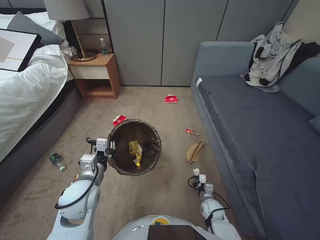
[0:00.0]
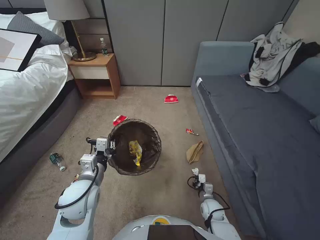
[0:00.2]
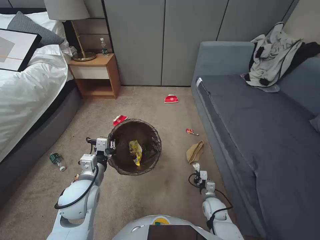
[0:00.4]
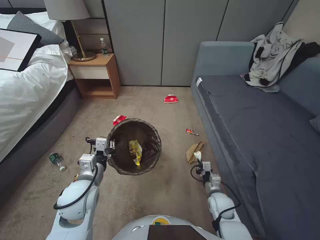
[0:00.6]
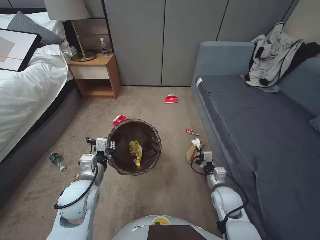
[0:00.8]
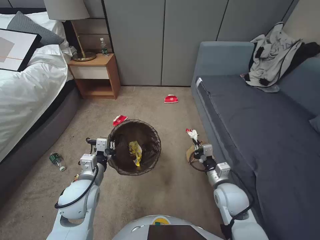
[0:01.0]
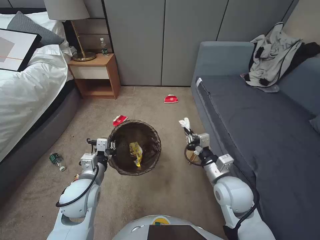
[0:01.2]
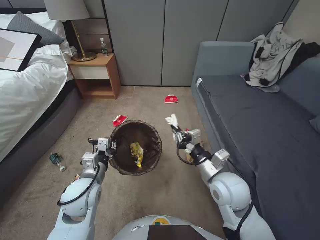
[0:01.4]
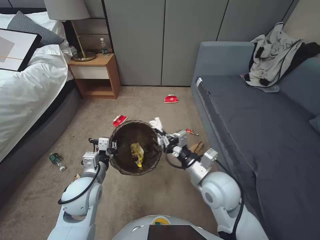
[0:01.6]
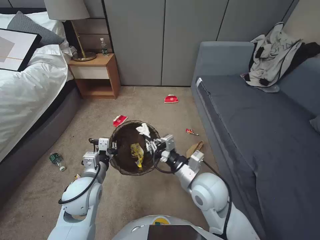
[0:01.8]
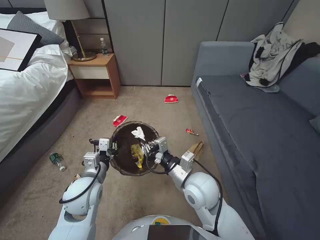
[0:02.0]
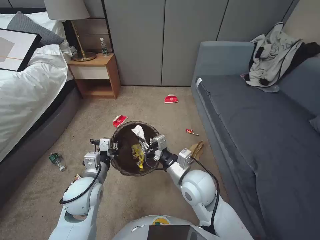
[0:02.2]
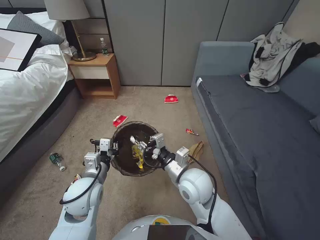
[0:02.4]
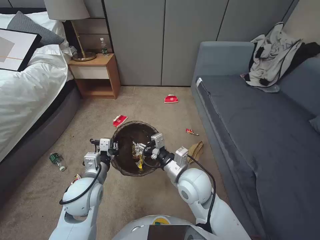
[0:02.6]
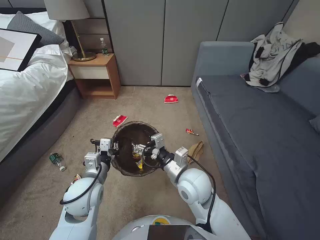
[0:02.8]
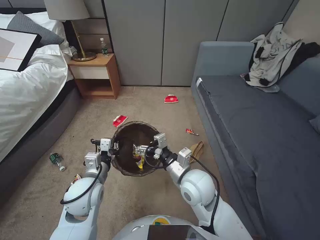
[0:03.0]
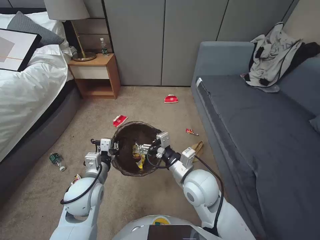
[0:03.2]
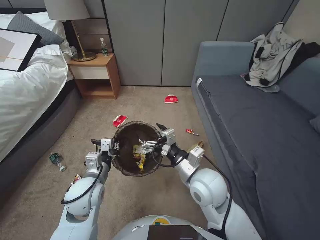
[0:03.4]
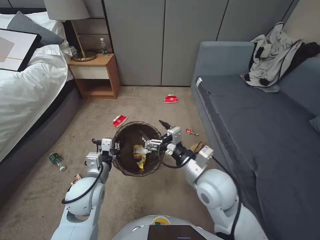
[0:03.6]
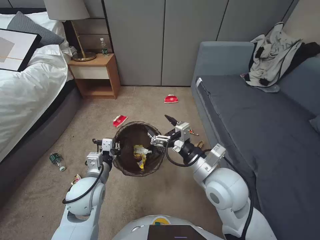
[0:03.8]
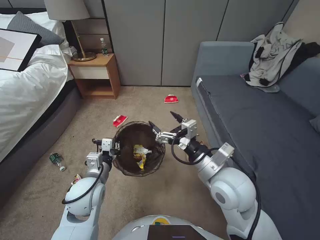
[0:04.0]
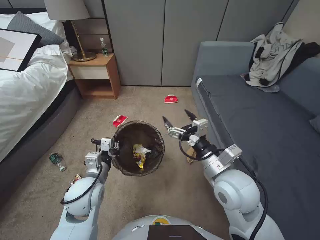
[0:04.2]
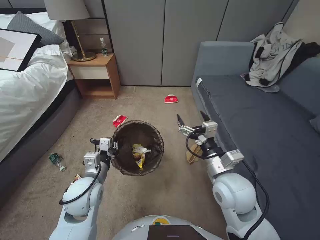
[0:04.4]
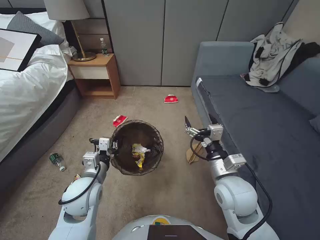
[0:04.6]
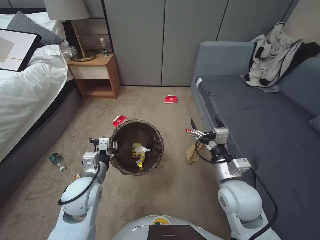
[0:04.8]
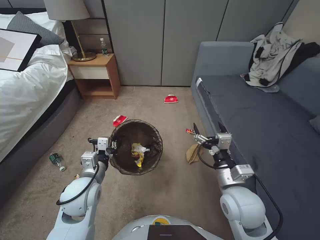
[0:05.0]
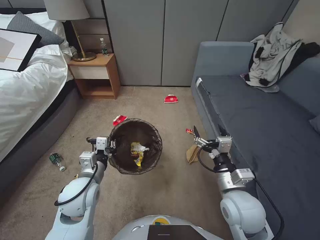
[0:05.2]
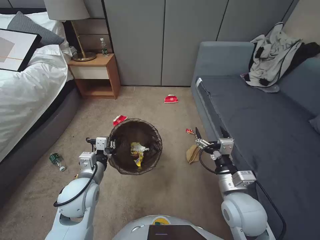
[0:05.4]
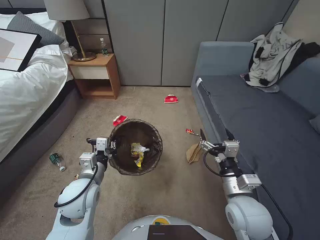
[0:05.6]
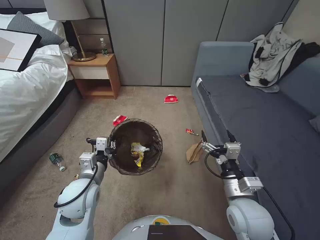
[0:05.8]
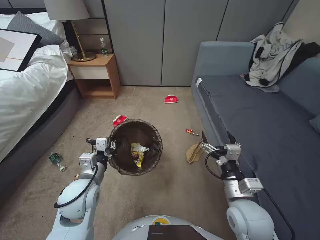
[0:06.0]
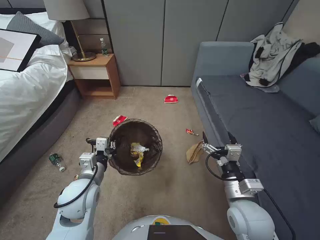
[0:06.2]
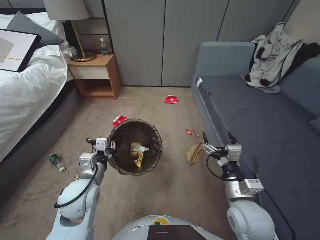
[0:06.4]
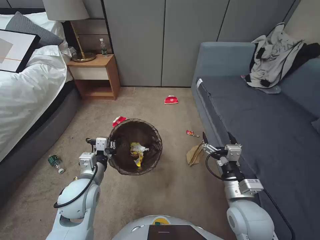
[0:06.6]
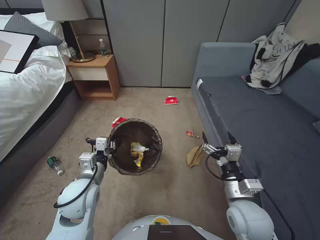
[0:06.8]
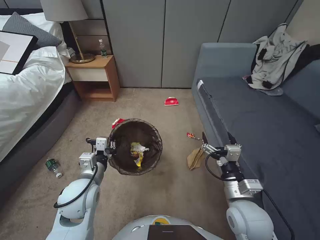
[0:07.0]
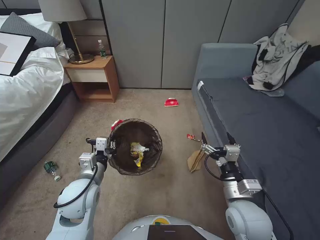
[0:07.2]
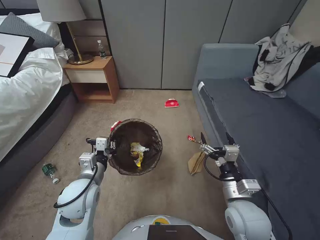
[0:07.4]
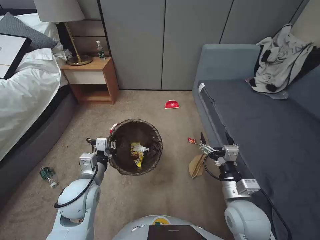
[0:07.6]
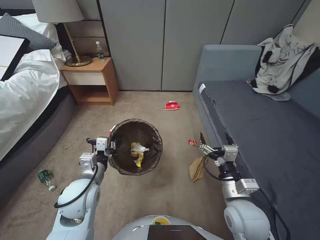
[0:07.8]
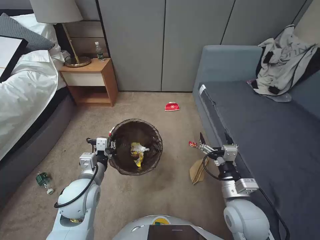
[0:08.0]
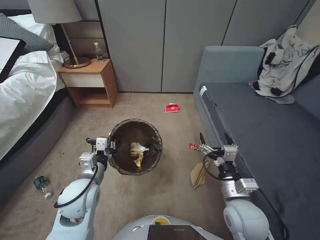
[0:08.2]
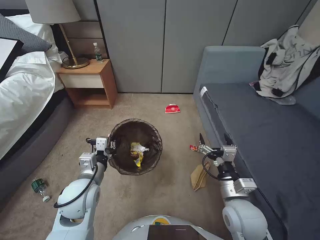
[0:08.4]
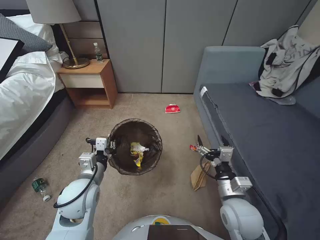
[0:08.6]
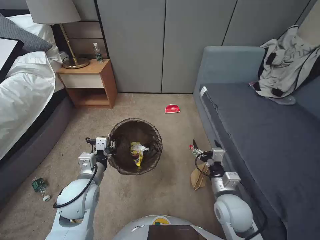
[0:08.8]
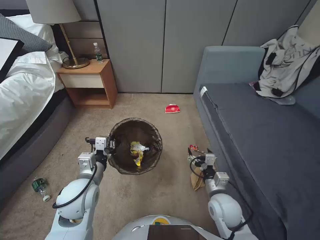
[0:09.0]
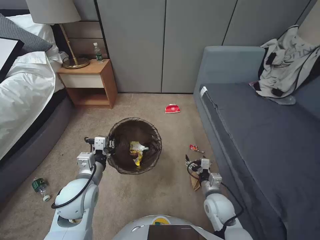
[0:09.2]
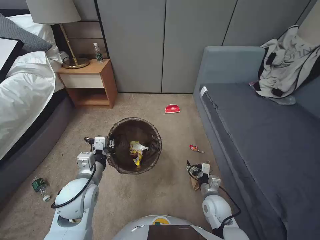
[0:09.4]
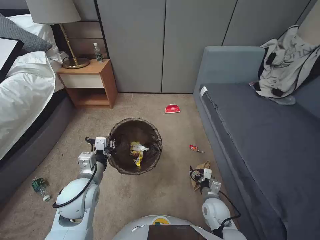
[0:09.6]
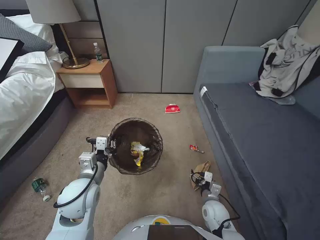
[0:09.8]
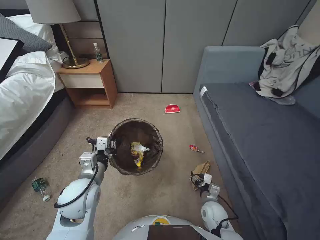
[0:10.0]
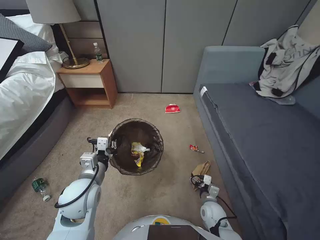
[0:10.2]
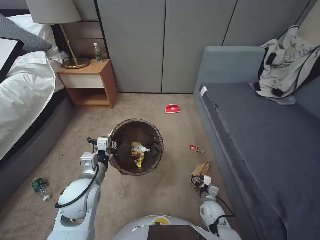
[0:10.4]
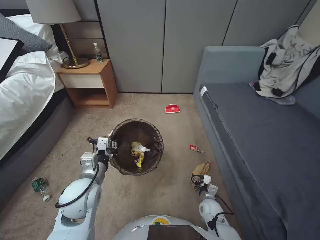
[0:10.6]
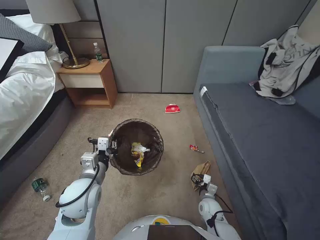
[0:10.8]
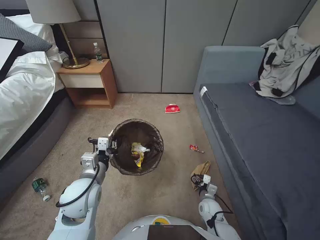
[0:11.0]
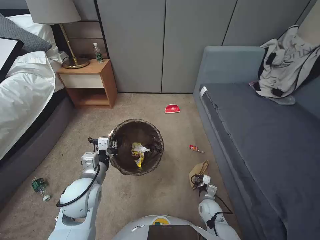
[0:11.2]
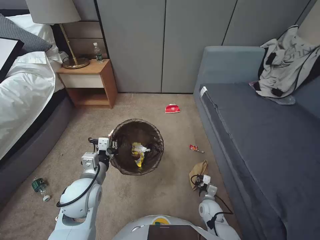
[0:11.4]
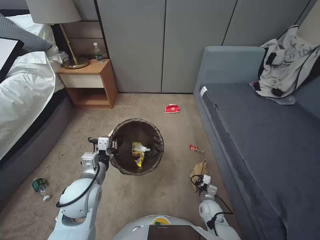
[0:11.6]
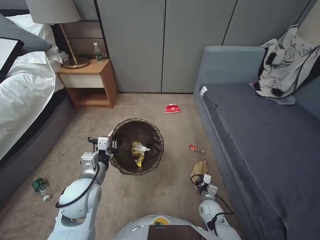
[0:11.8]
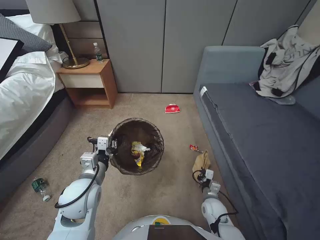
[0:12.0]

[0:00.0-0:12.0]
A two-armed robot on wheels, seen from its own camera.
Task of the whole recording: Pick up the trash bin, then pick up the garbage from the floor and place it into the trash bin.
0:00.0 to 0:01.6: The right gripper travels upward by approximately 35 cm.
0:01.6 to 0:03.0: The right gripper is displaced to the left by about 10 cm, and opens its fingers.
0:03.0 to 0:04.4: The right gripper goes about 10 cm to the right.
0:04.4 to 0:06.0: The right gripper shifts roughly 10 cm downward and backward.
0:06.0 to 0:07.6: The two grippers keep their place.
0:07.6 to 0:09.0: The right gripper is displaced downward by approximately 5 cm.
0:09.0 to 0:10.4: The right gripper moves downward, approximately 20 cm.
0:10.4 to 0:12.0: The right gripper closes.

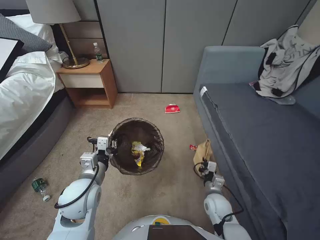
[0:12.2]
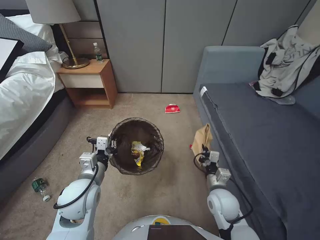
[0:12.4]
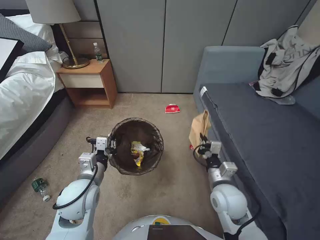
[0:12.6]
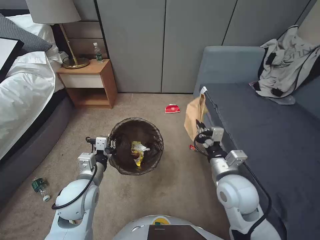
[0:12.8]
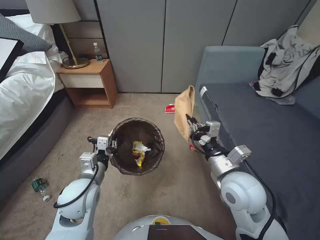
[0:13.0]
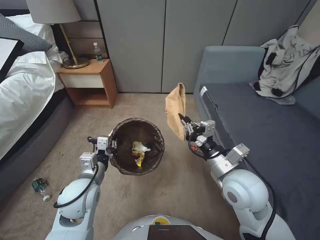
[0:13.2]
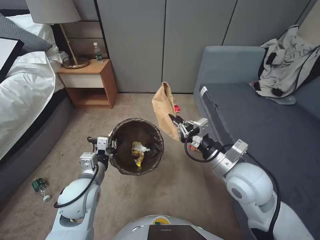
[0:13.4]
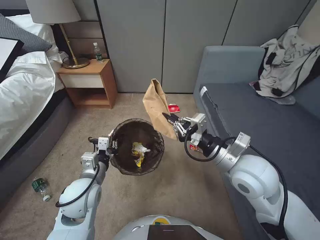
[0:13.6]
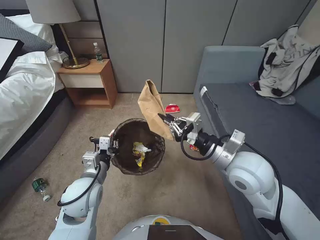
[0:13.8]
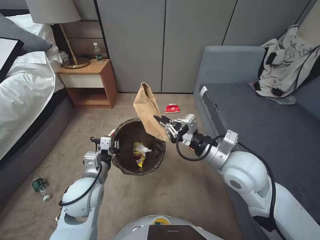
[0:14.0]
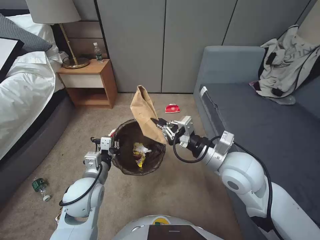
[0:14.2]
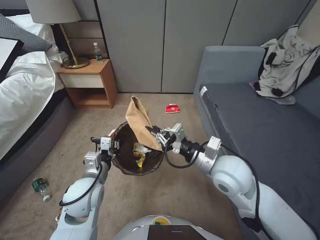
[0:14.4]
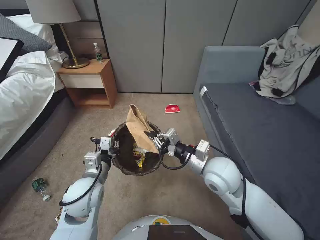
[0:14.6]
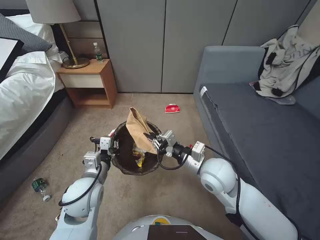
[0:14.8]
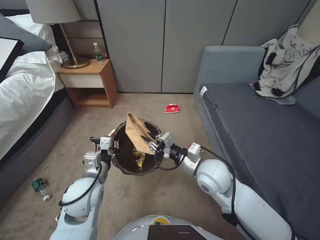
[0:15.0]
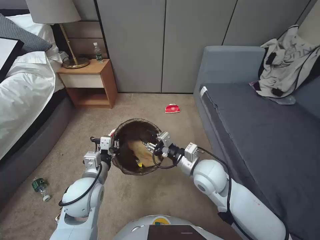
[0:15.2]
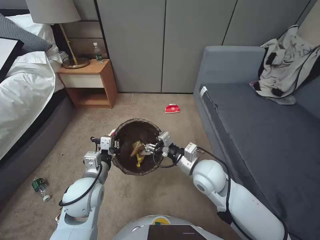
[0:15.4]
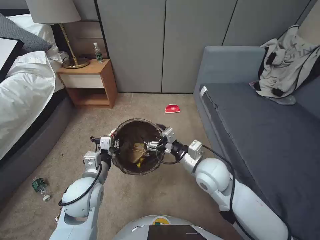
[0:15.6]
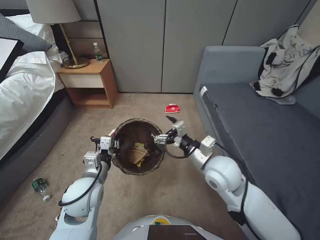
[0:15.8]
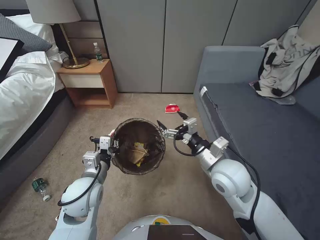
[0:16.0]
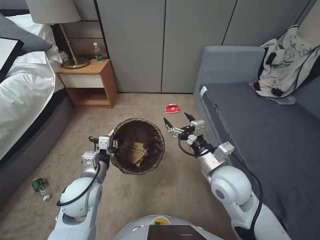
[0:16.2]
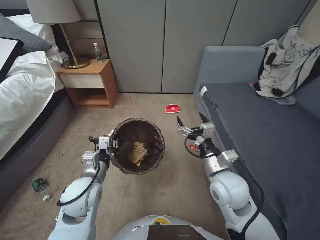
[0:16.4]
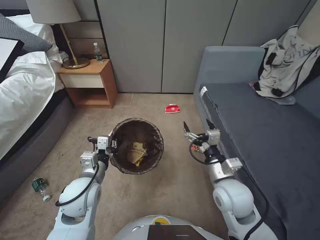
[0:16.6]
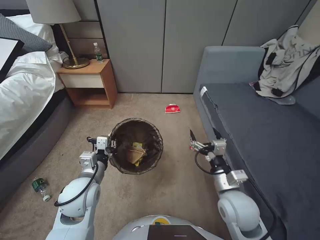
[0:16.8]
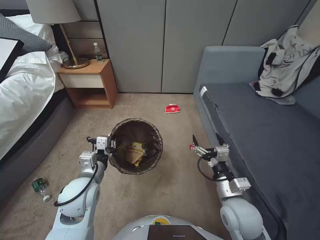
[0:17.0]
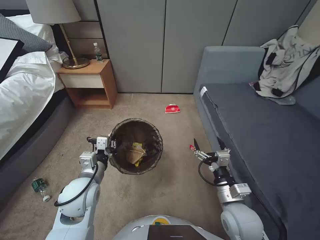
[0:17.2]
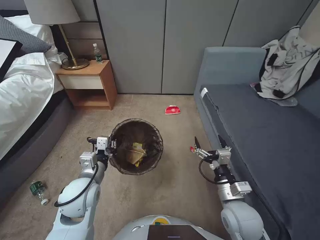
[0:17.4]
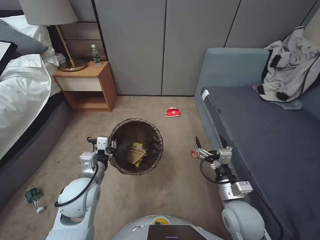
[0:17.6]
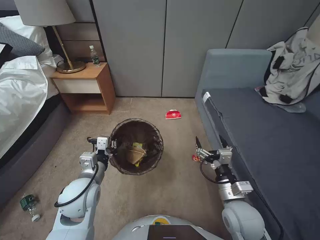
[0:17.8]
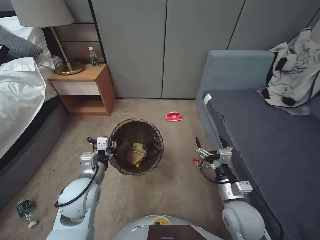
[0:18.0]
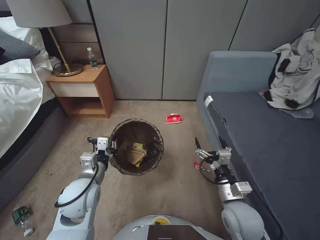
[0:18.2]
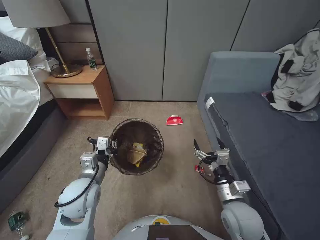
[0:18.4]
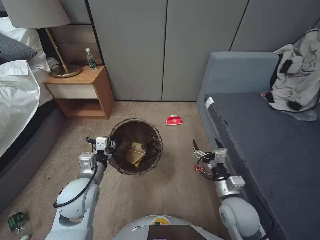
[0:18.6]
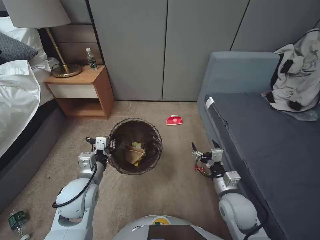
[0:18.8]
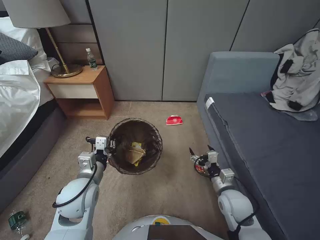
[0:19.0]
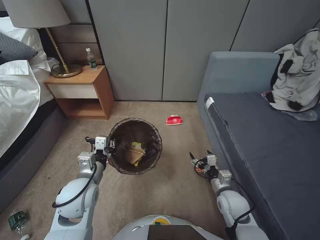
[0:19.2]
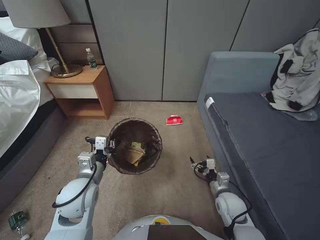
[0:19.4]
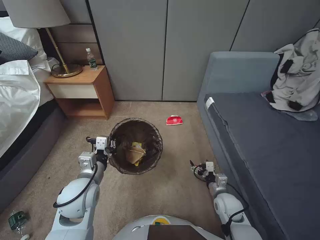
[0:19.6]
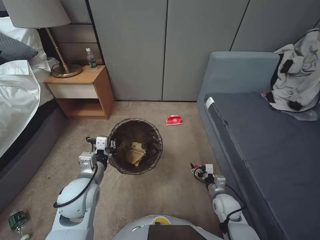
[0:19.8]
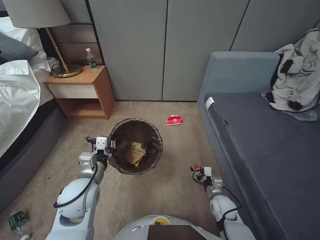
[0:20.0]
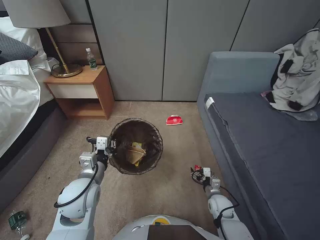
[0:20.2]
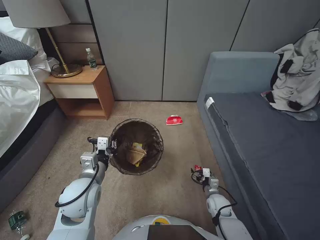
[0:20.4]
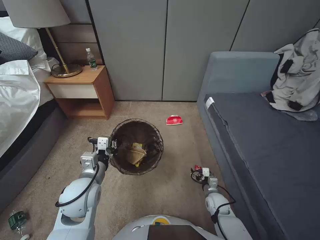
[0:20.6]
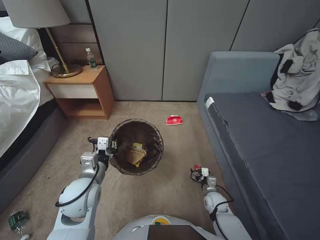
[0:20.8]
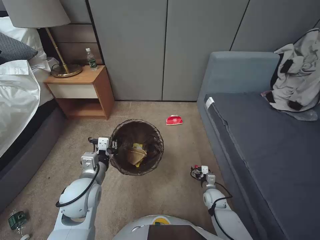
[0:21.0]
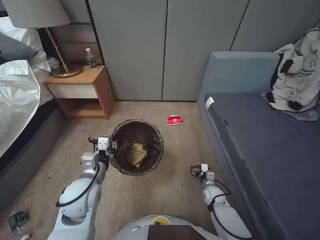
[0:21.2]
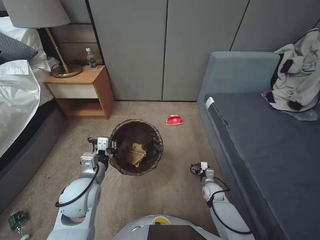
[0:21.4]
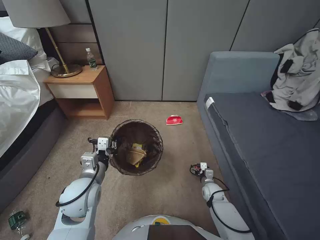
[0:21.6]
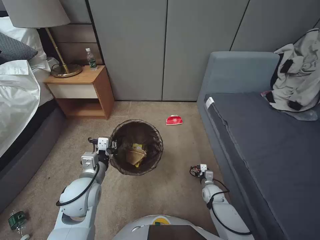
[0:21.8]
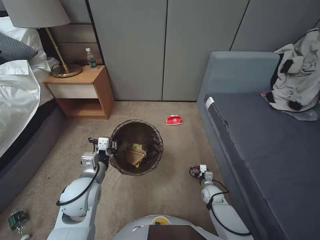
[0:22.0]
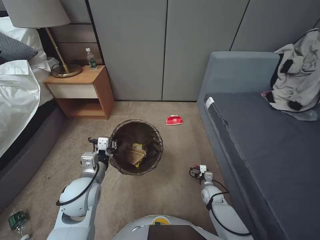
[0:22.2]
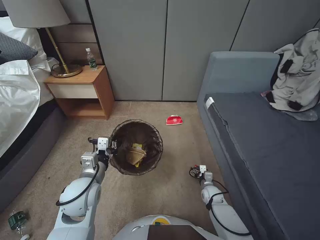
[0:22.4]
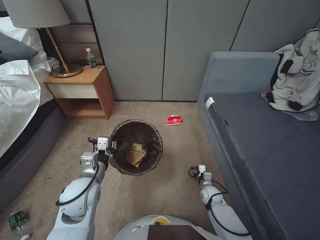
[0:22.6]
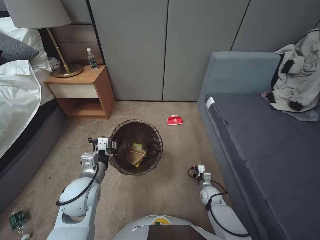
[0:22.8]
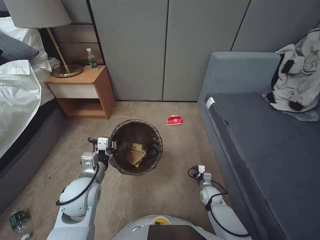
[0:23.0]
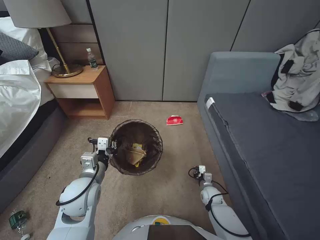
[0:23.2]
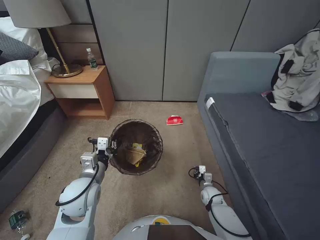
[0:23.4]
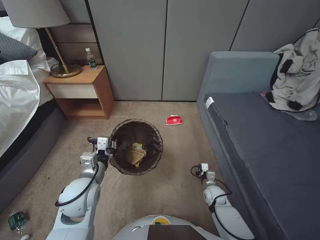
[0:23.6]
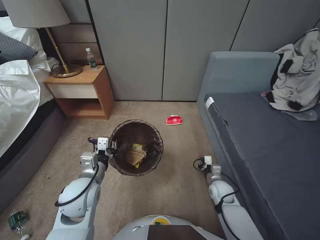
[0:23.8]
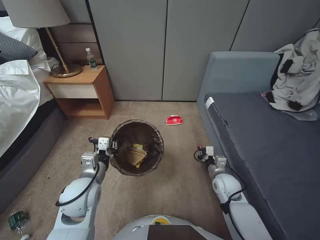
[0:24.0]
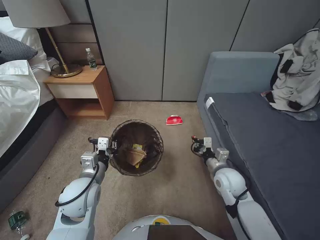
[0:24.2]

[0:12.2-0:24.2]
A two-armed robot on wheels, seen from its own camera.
Task of the whole recording: Pick up the trash bin, then pick up the garbage from the floor and place it into the trash bin.
0:12.2 to 0:13.8: The right gripper goes approximately 35 cm upward.
0:13.8 to 0:15.2: The right gripper goes about 10 cm downward and to the left.
0:15.2 to 0:16.6: The right gripper ends up approximately 5 cm from where it was, and opens its fingers.
0:16.6 to 0:18.2: The right gripper shifts approximately 10 cm downward and backward.
0:18.2 to 0:19.8: The right gripper moves downward, some 15 cm.
0:19.8 to 0:21.2: The right gripper travels downward and forward by roughly 10 cm.
0:21.2 to 0:22.6: The grippers stay close to where they were, moving slightly.
0:22.6 to 0:24.2: The right gripper shifts some 20 cm upward, and closes.
